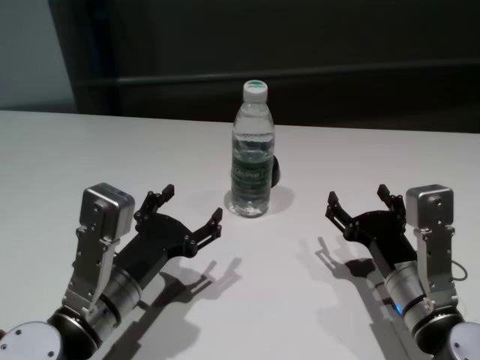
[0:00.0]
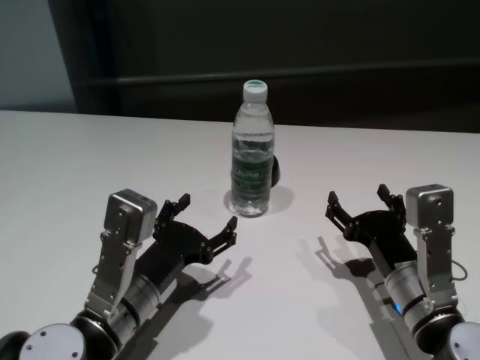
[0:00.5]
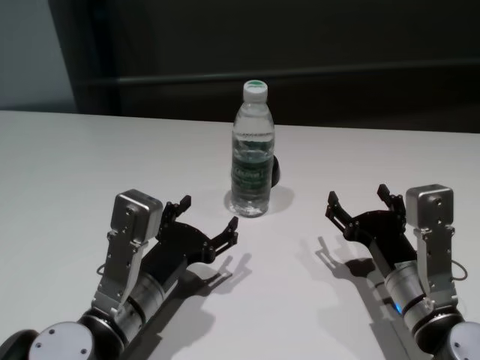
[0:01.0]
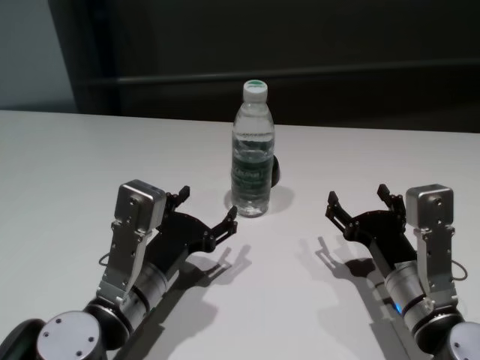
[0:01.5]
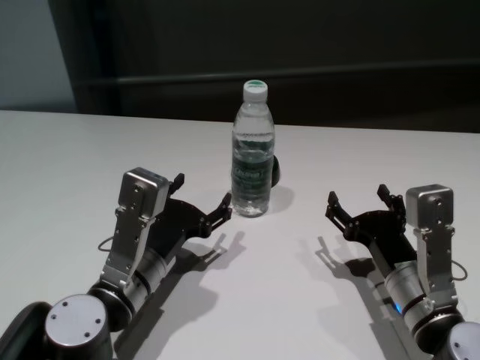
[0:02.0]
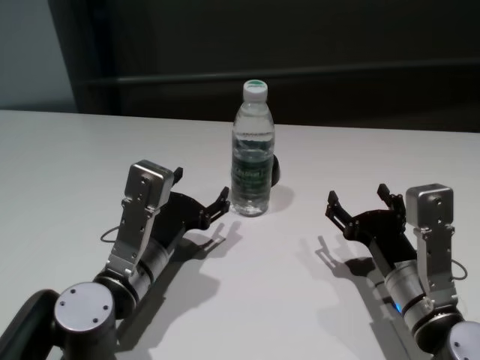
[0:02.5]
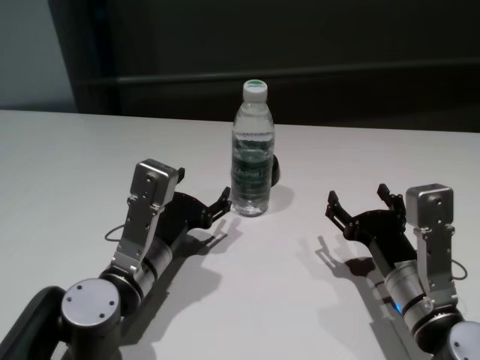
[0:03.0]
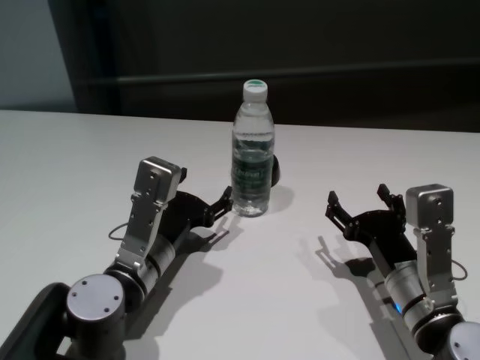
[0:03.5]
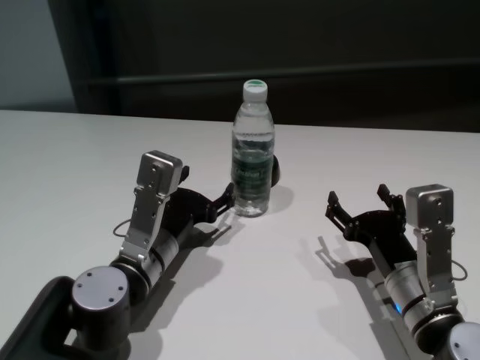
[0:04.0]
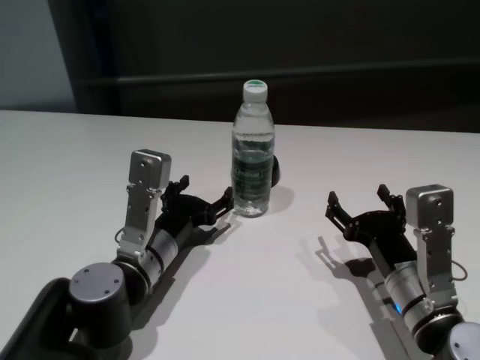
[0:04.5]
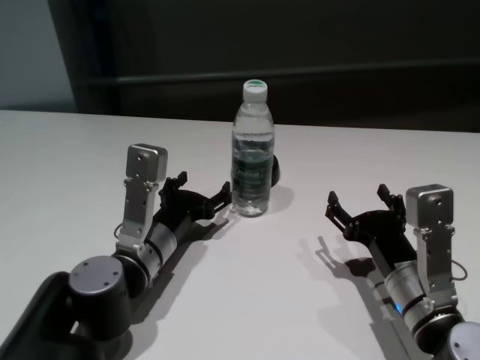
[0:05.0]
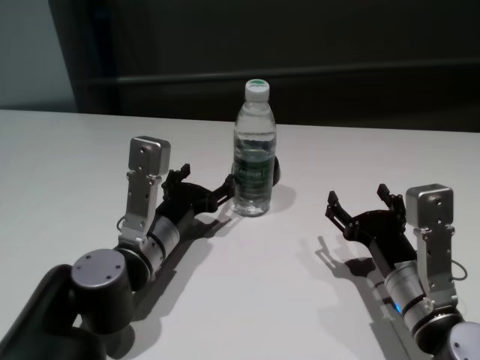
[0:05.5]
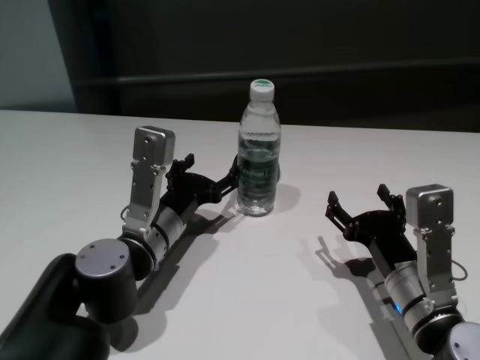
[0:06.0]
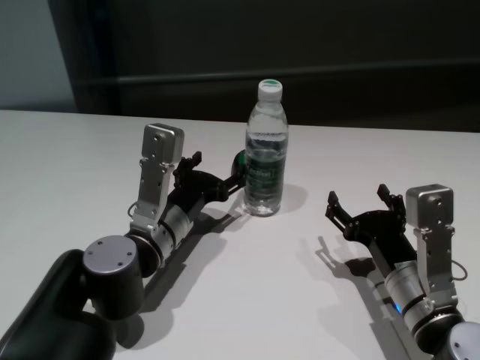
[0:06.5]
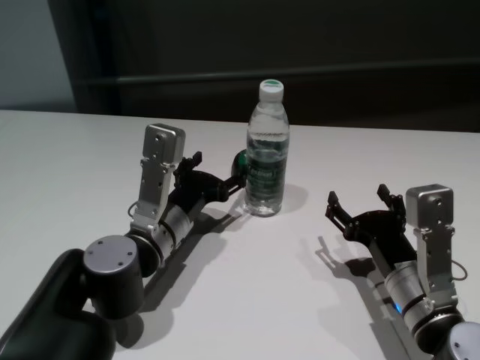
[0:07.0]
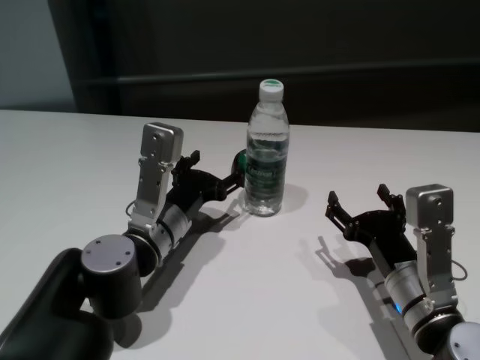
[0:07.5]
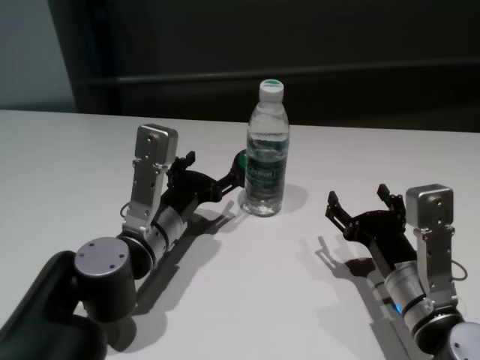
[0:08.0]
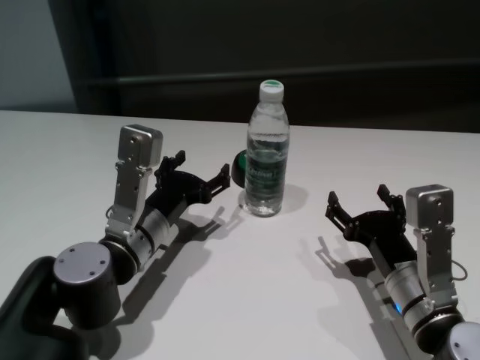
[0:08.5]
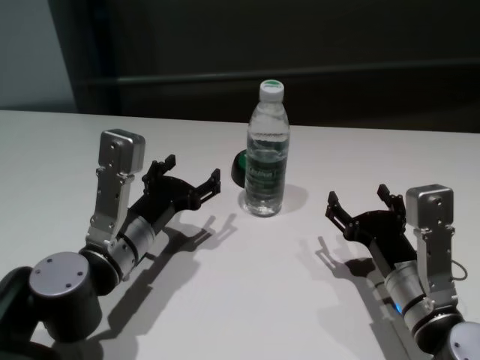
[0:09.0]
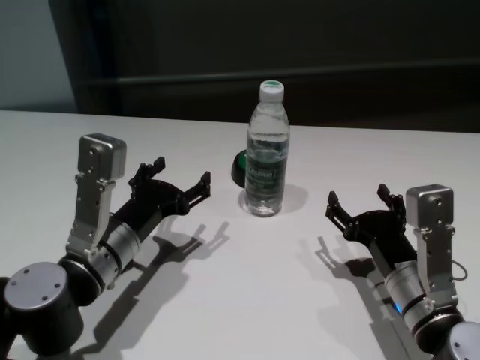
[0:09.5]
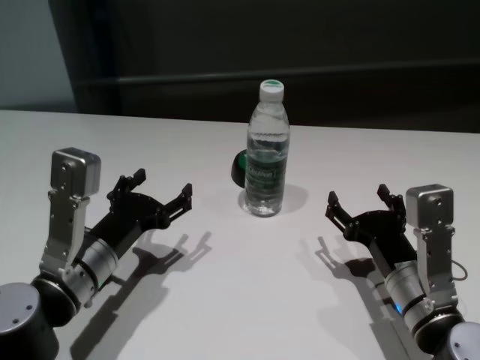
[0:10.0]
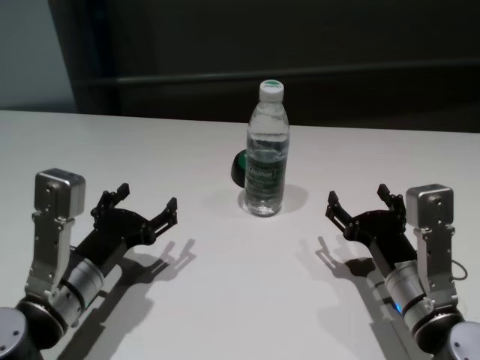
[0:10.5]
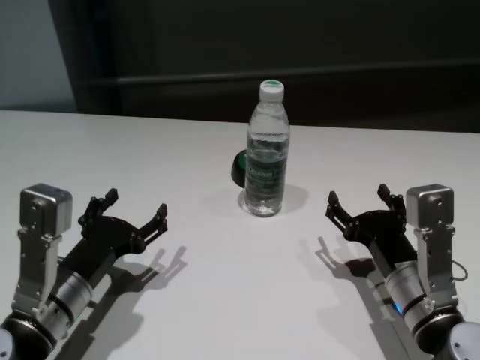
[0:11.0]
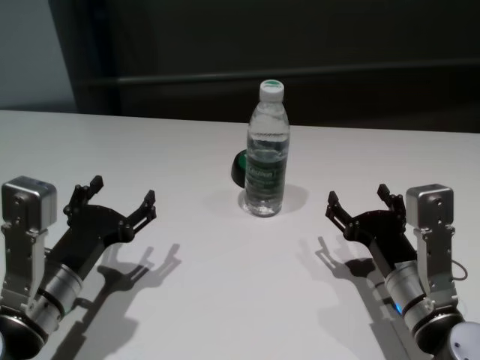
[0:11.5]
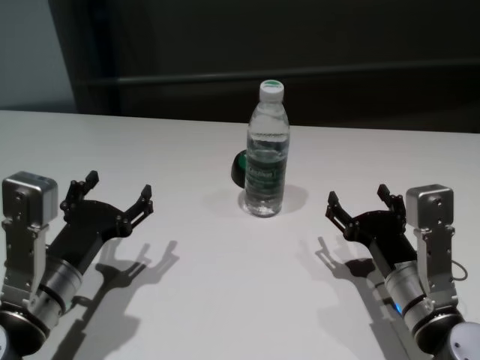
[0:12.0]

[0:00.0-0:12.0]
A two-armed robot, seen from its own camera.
Task of the whole recording: return to a safe position after touching an obstacle with your arm on the white table.
Step, 0:00.0 to 0:08.0: Touch the bottle with left gripper.

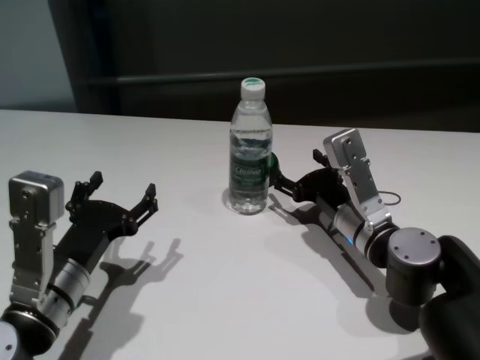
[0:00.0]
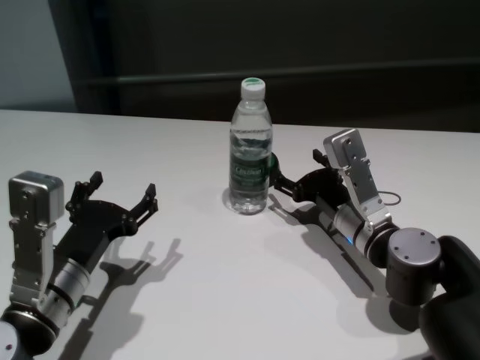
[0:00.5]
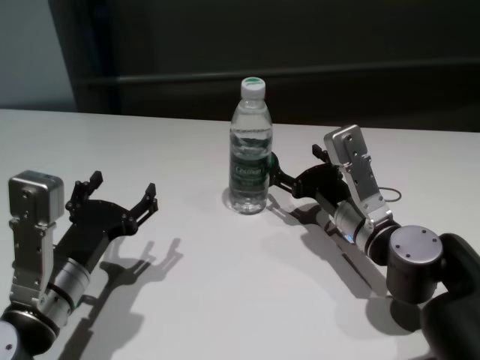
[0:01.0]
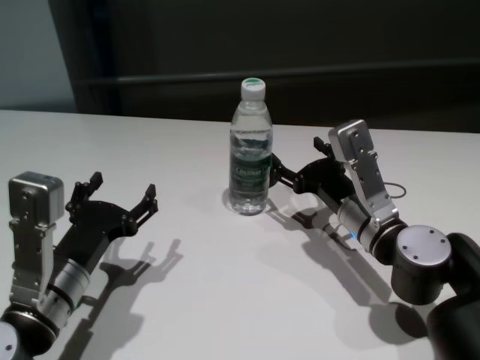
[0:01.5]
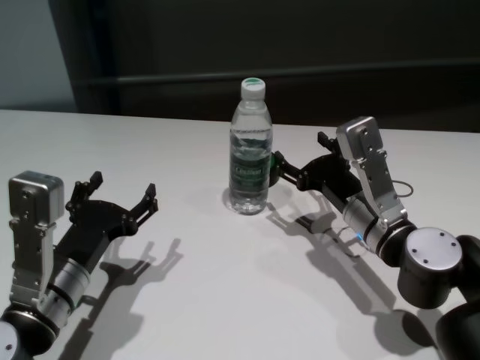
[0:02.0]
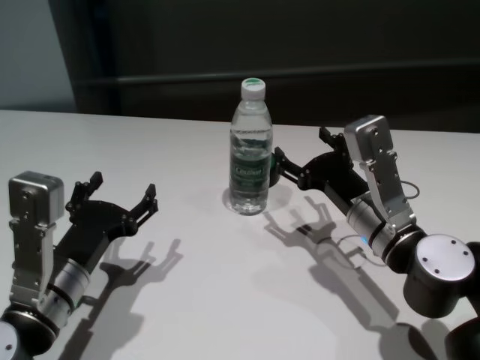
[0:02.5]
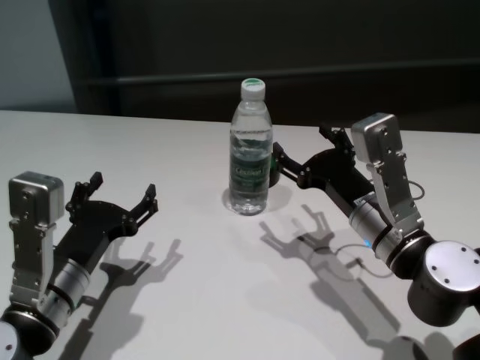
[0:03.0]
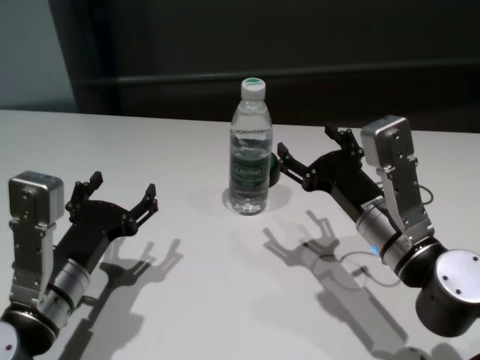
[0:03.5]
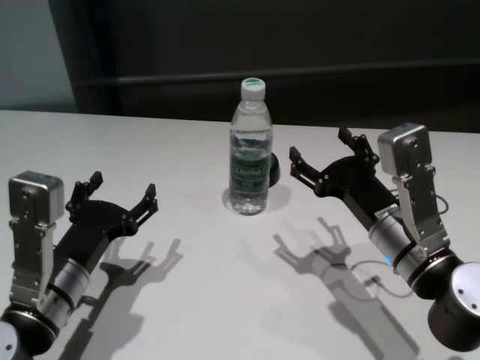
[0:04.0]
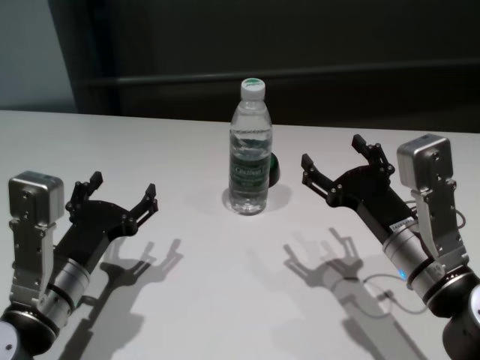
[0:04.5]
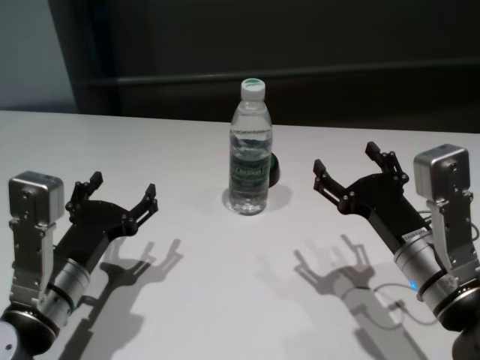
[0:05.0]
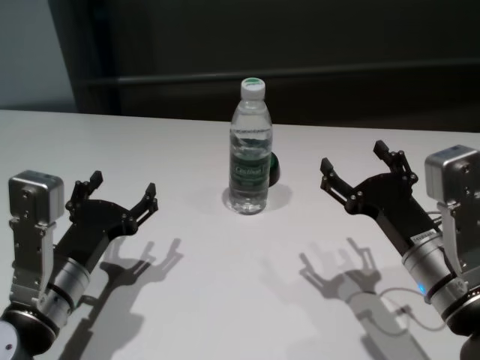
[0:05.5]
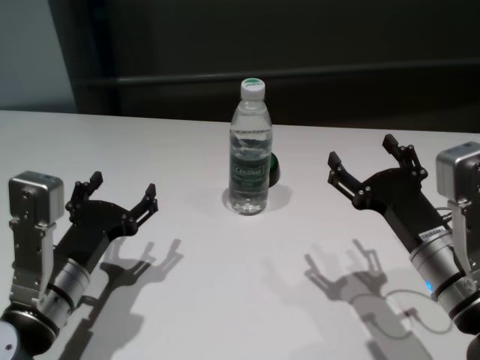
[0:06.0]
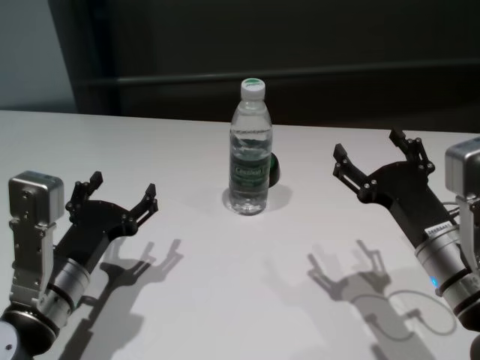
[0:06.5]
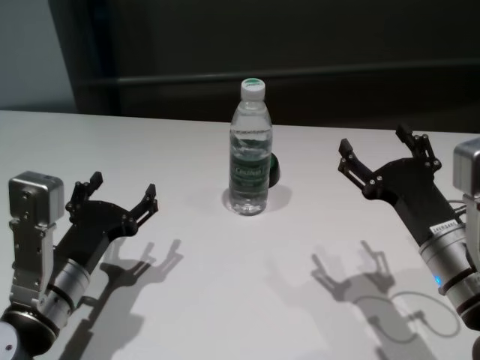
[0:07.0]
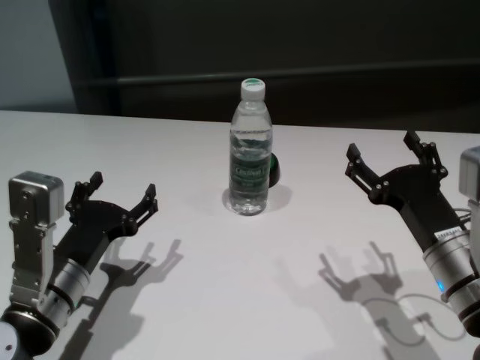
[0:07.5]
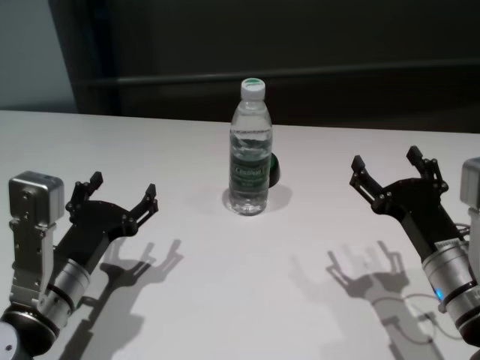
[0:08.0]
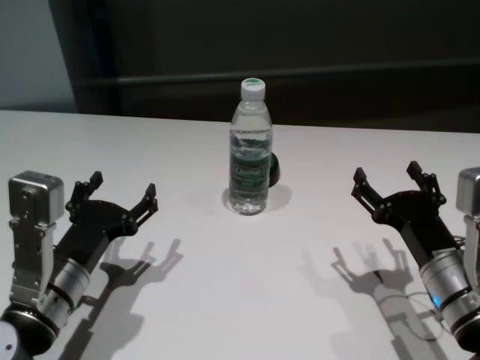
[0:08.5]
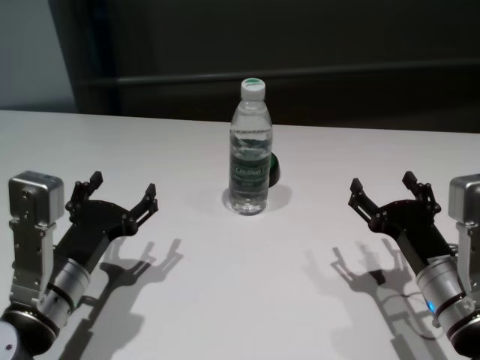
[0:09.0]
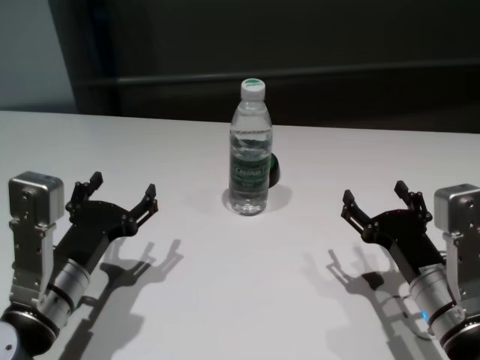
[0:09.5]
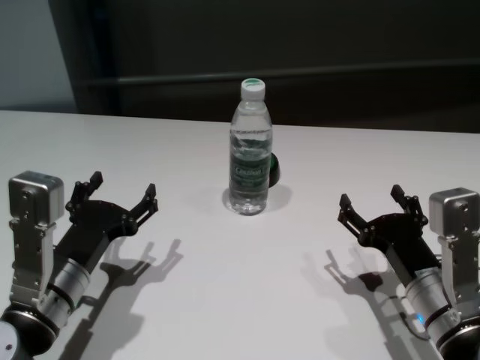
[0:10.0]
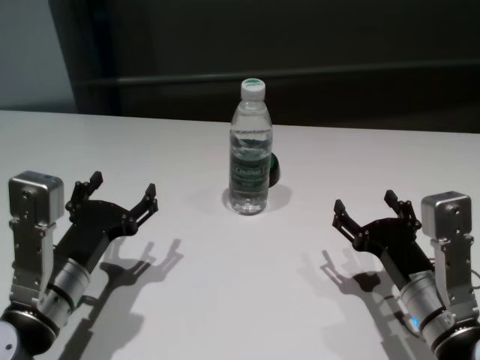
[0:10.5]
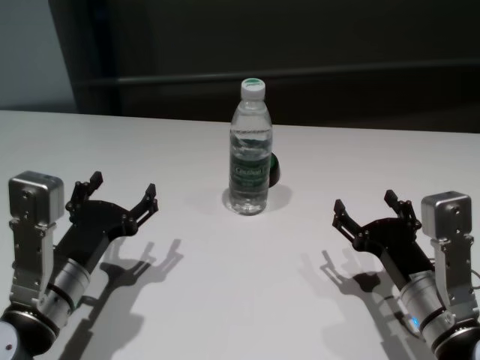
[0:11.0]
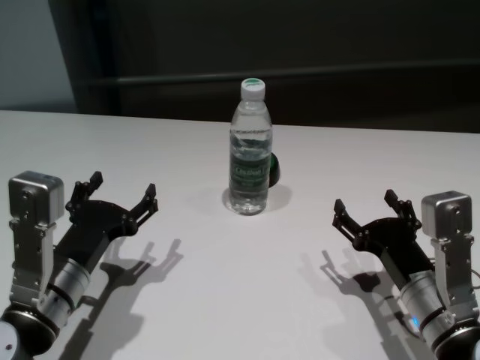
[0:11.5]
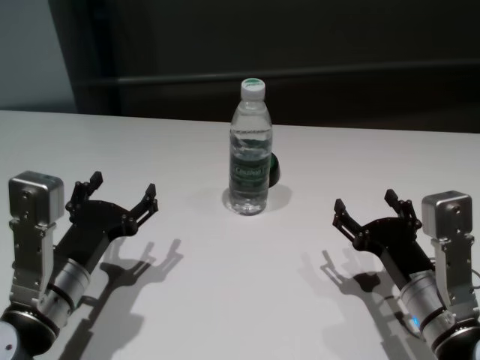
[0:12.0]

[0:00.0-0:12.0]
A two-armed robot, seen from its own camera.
Task of the whole recording: return to a safe position after touching an obstacle with your arm on the white table.
Step, 0:00.0 to 0:02.0: Touch the bottle with right gripper.

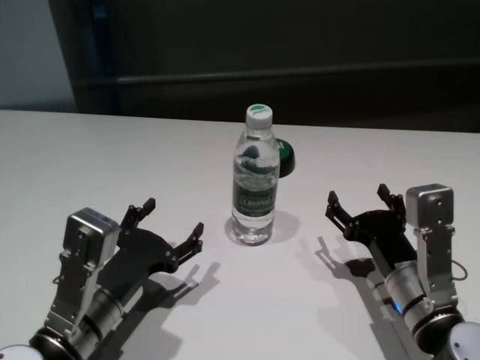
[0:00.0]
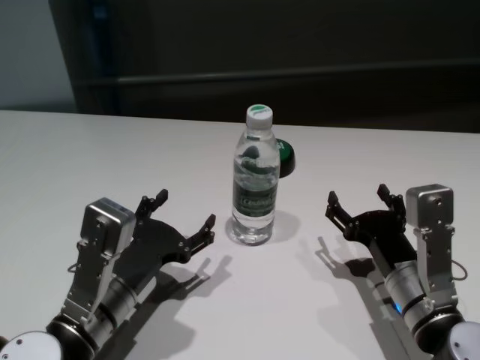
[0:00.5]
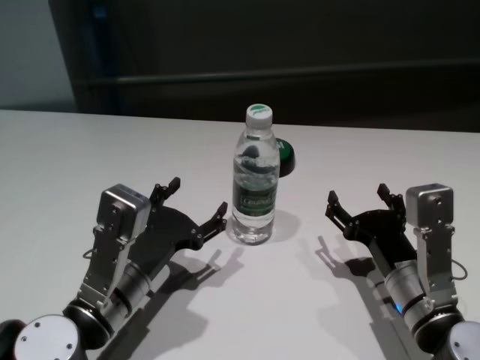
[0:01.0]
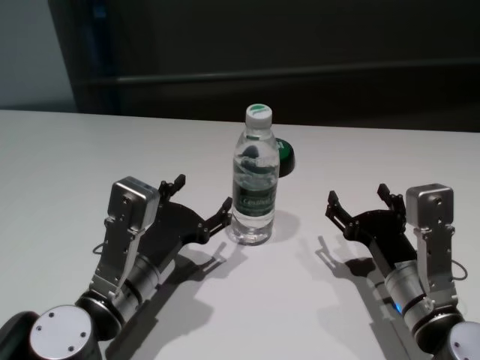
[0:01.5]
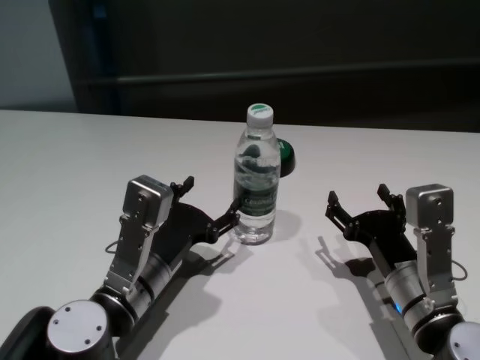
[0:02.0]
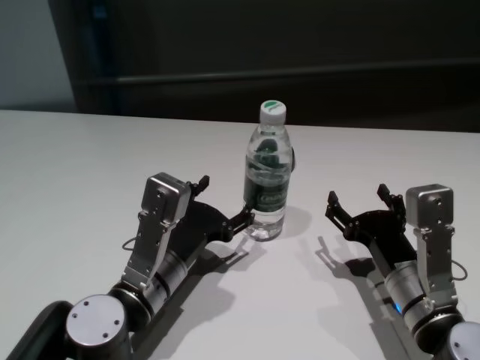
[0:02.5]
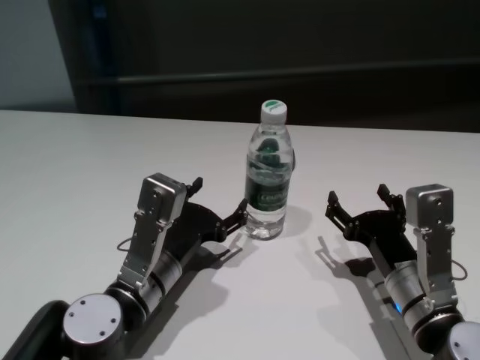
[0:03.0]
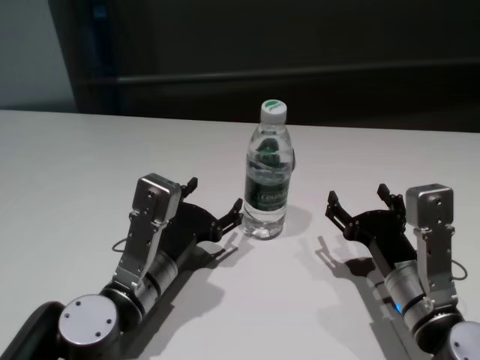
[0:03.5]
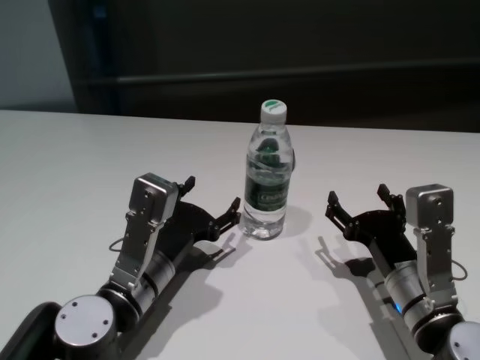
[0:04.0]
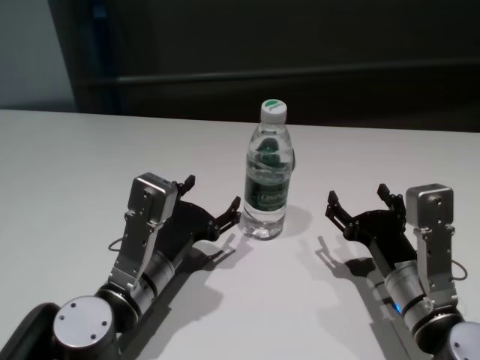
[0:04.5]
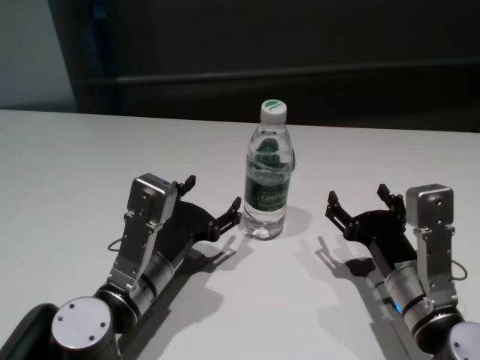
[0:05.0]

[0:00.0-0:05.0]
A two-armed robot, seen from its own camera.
Task of the whole recording: return to a safe position after touching an obstacle with your arm on the white table.
Step, 0:00.0 to 0:03.5: Touch the bottle with left gripper.
